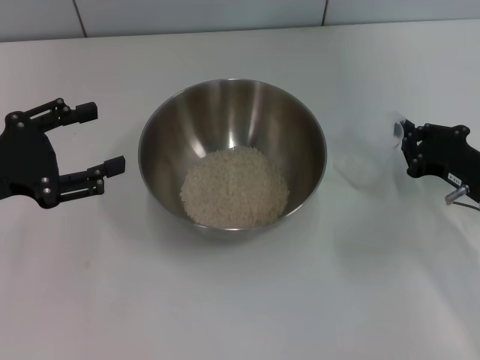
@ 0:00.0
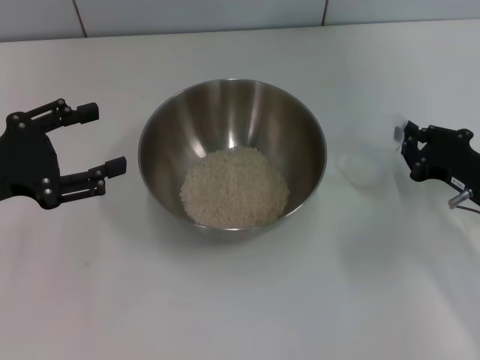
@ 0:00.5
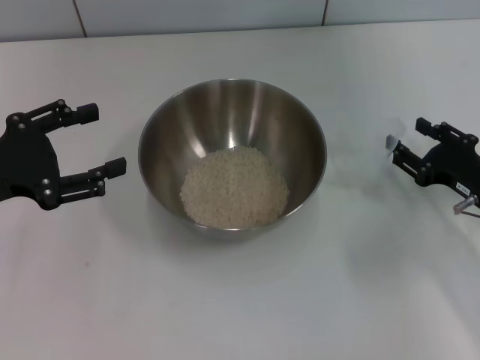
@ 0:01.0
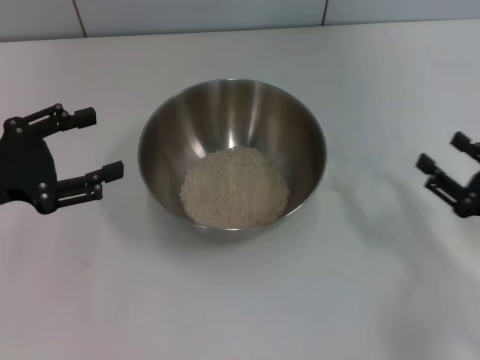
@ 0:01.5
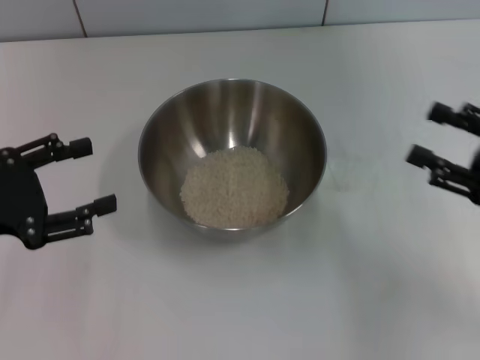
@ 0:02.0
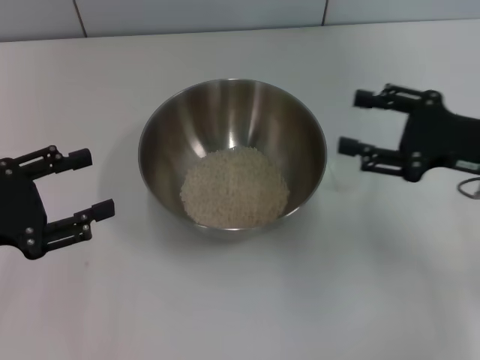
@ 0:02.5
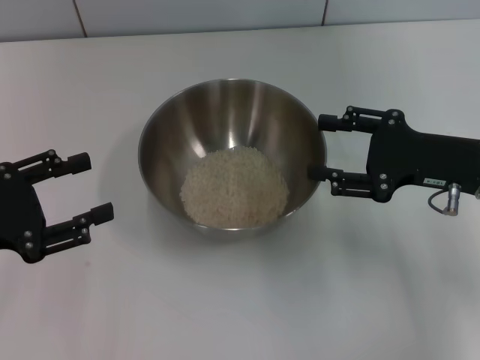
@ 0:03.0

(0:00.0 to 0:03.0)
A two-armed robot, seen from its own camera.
Task of the whole recording: Place the bowl in the middle of the table with one hand and pour the rice from the grain cup into it with the other hand.
0:00.0 - 0:01.5: The right gripper heads backward, covering some 10 cm, and opens up.
0:01.5 - 0:03.0: The right gripper goes roughly 15 cm forward, upward and to the left.

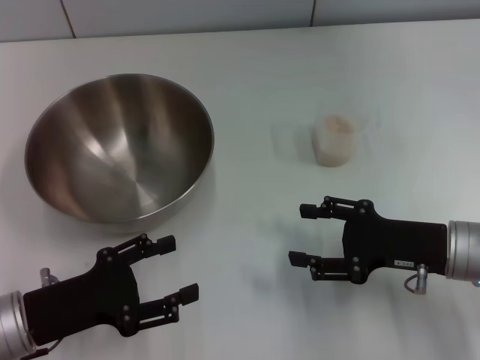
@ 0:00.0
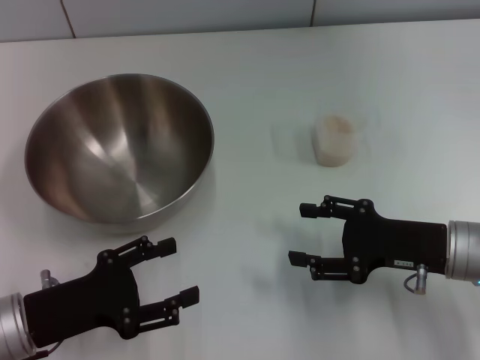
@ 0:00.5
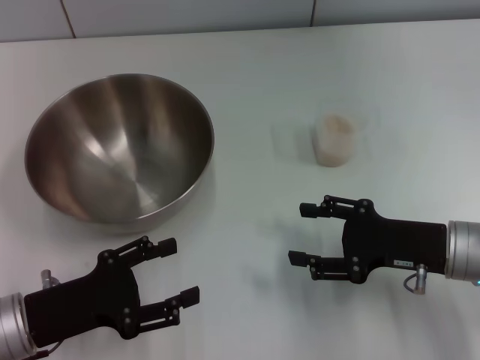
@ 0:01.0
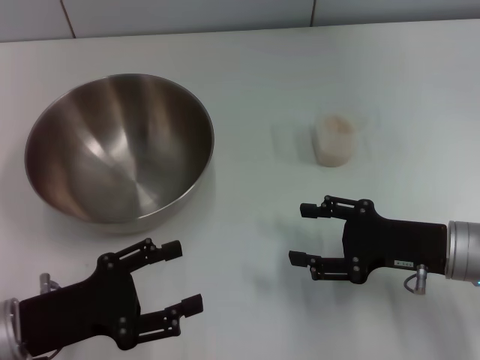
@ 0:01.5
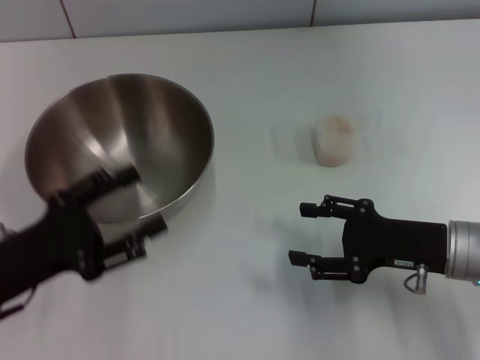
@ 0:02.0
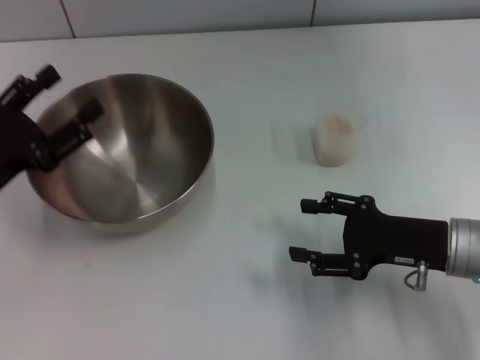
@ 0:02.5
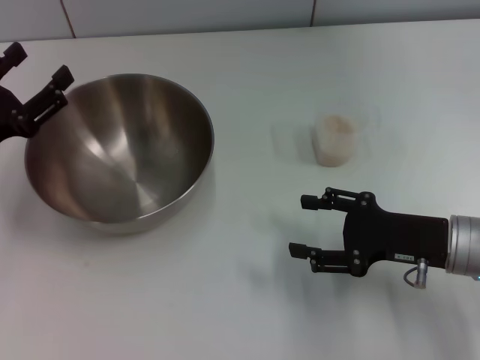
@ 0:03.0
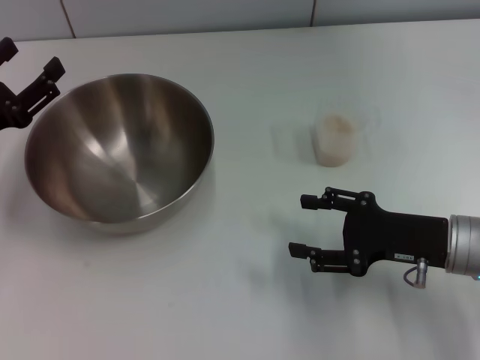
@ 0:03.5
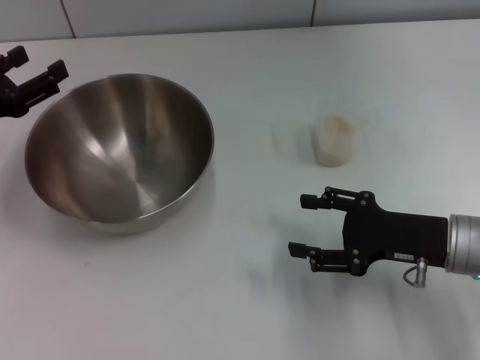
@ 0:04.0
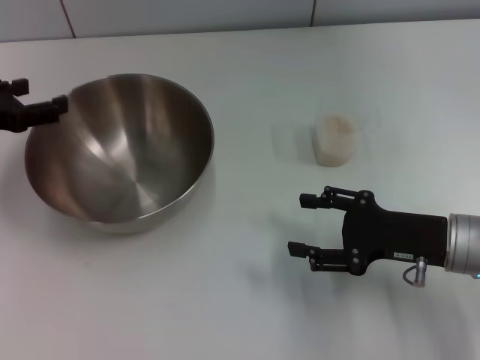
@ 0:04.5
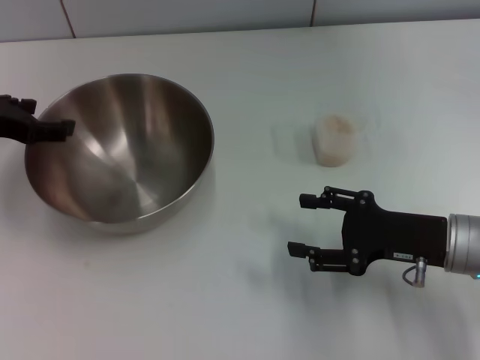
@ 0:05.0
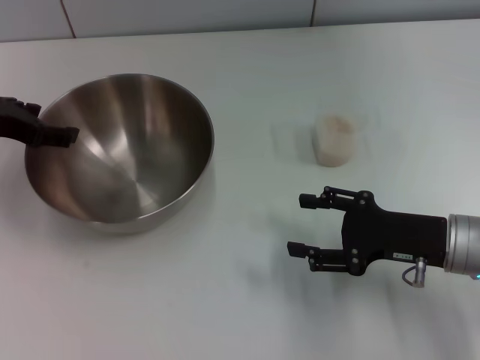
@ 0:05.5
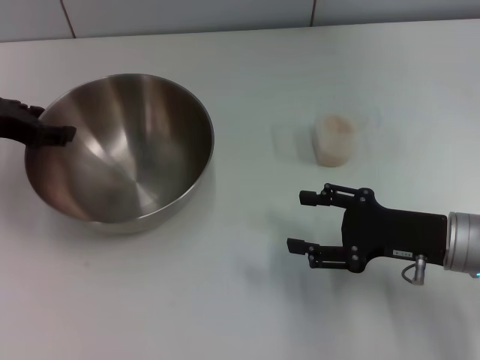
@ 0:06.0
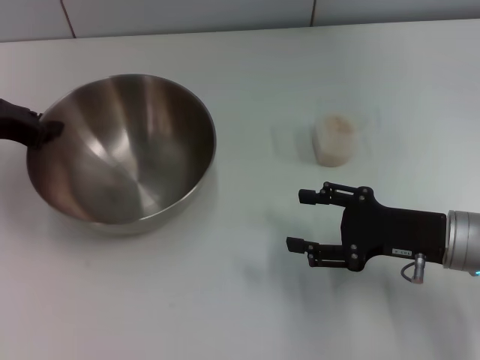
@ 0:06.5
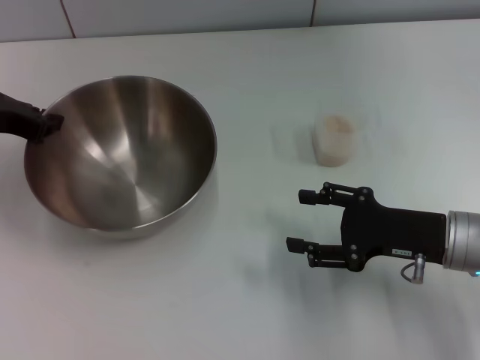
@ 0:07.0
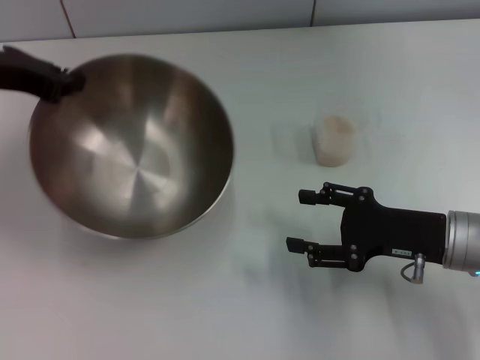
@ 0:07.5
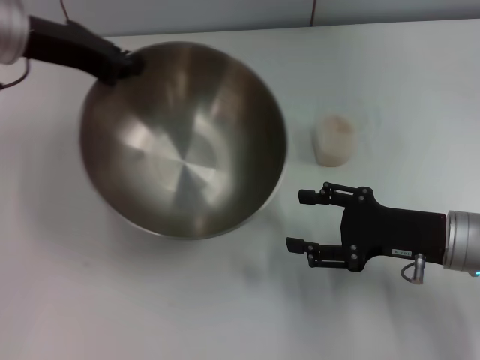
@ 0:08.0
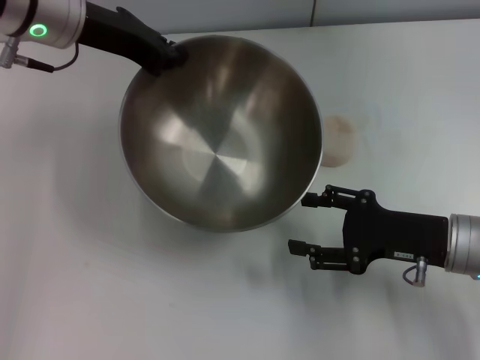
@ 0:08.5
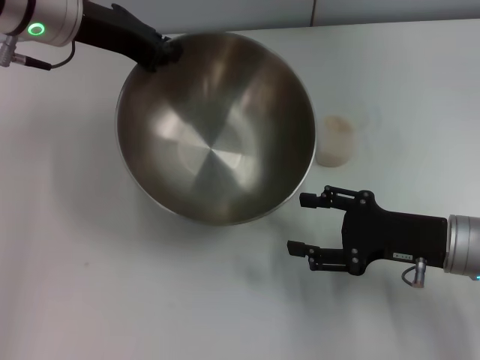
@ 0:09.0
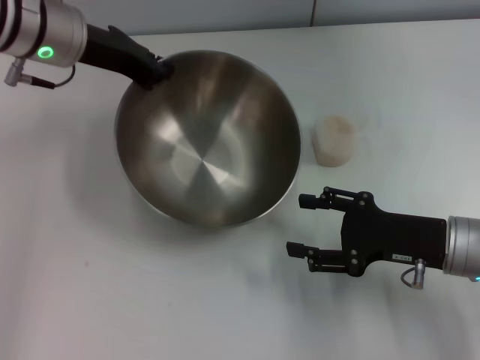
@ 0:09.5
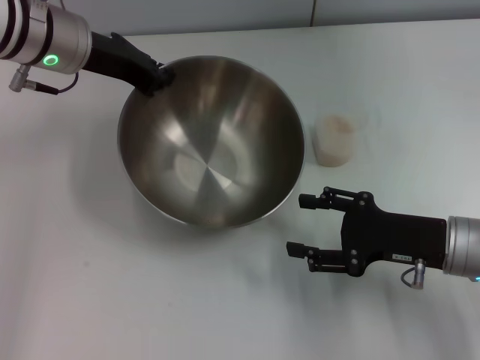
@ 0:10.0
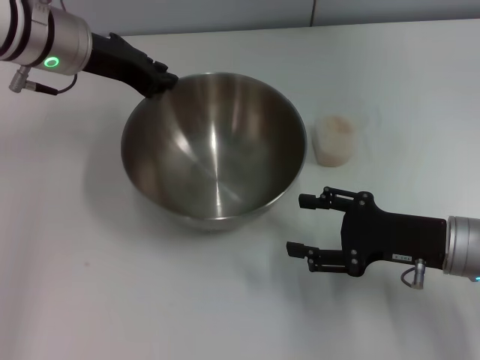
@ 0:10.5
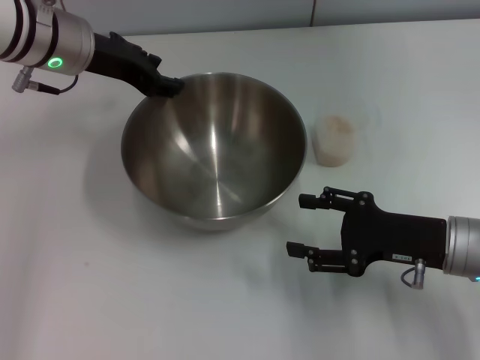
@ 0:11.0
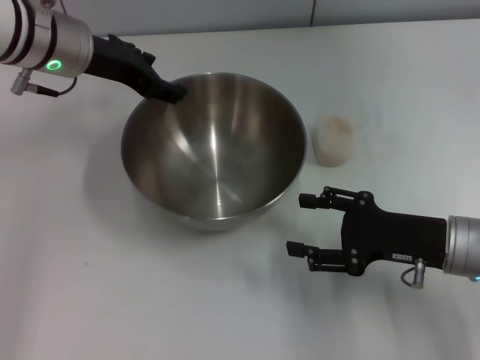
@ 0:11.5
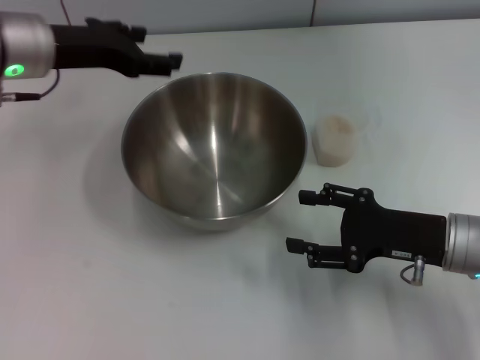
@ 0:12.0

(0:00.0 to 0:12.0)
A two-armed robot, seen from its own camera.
Task of the whole recording: Place the bowl in the middle of the table with one hand and pour the rice from the grain cup into it with the other hand.
Step, 0:00.0 - 0:07.5: Pick up the bowl with the left gripper.
0:00.0 - 0:02.0: The grippers move only a little.
0:02.0 - 0:04.0: The left gripper goes approximately 10 cm forward and to the left.
0:04.0 - 0:06.0: The left gripper changes place by some 5 cm.
0:06.0 - 0:08.0: The left gripper travels to the right and upward by about 10 cm, and closes.
0:08.0 - 0:10.0: The left gripper moves roughly 5 cm.
0:10.0 - 0:12.0: The left gripper opens its fingers.

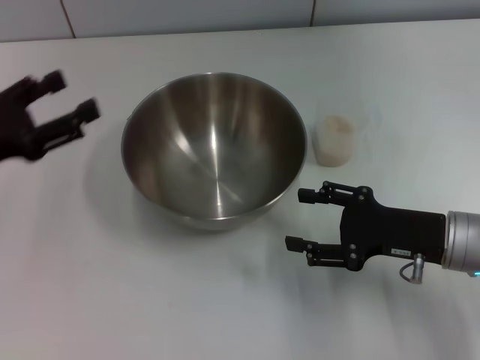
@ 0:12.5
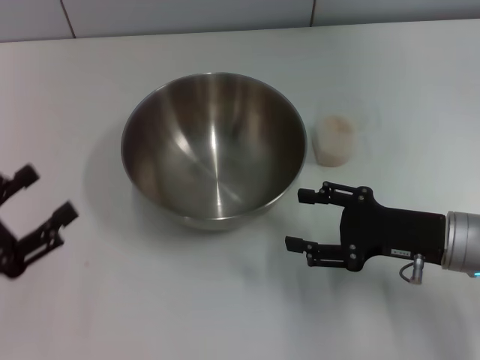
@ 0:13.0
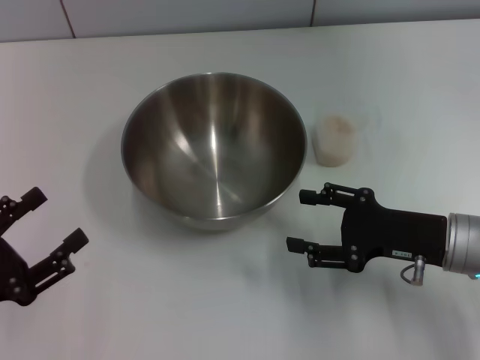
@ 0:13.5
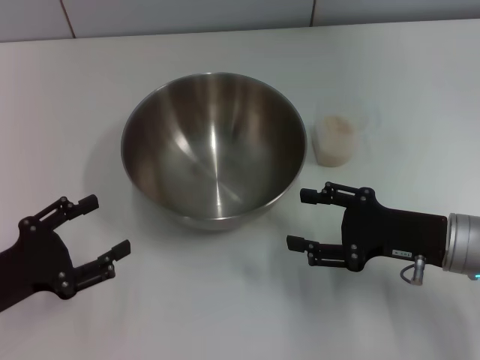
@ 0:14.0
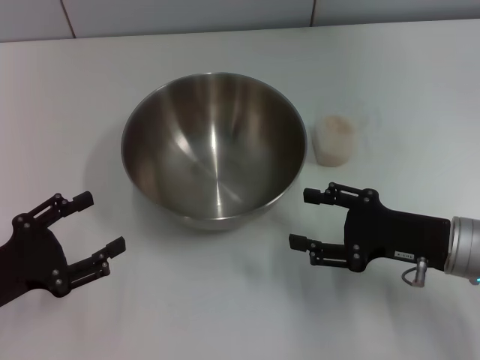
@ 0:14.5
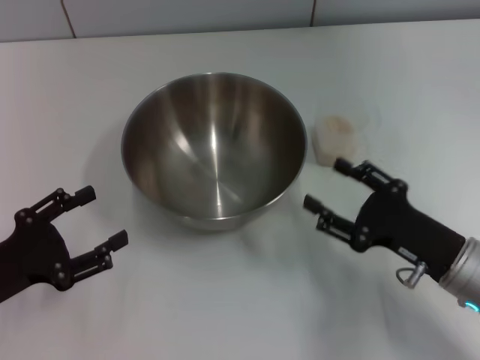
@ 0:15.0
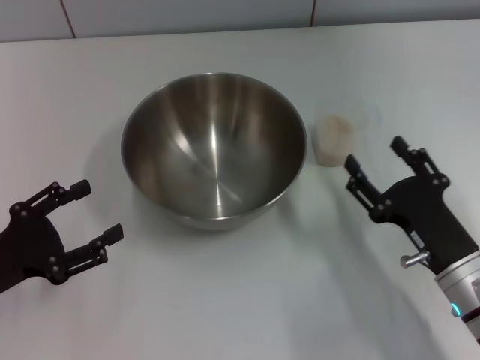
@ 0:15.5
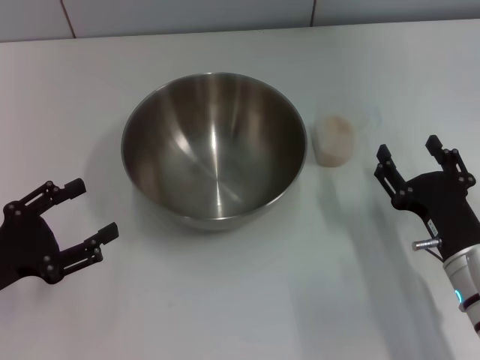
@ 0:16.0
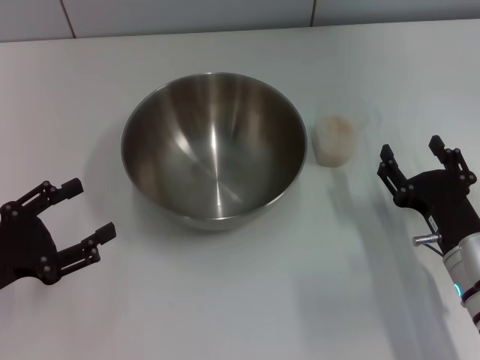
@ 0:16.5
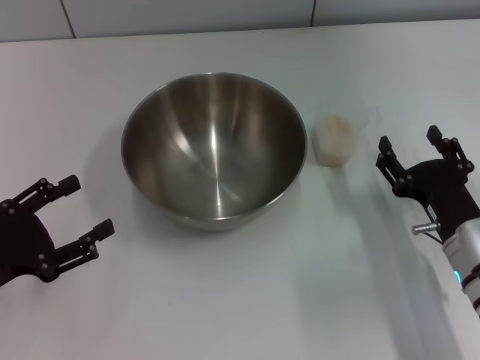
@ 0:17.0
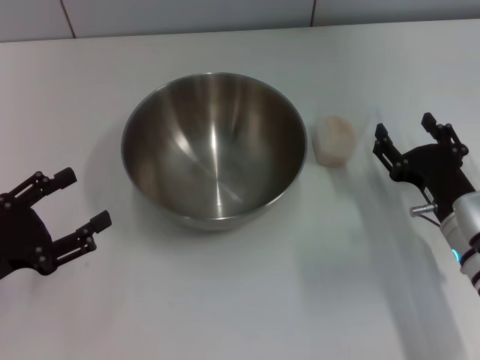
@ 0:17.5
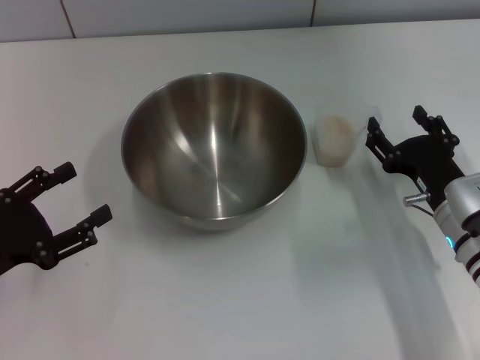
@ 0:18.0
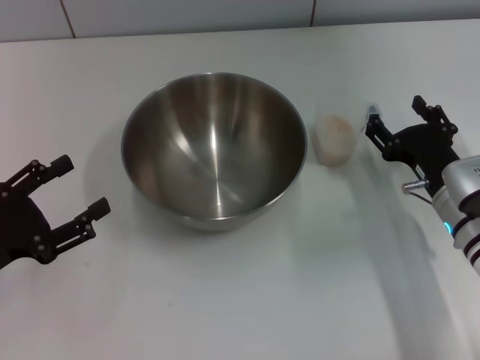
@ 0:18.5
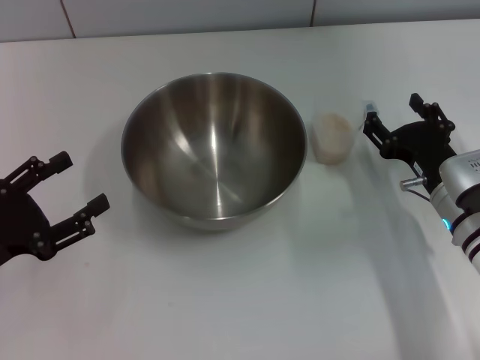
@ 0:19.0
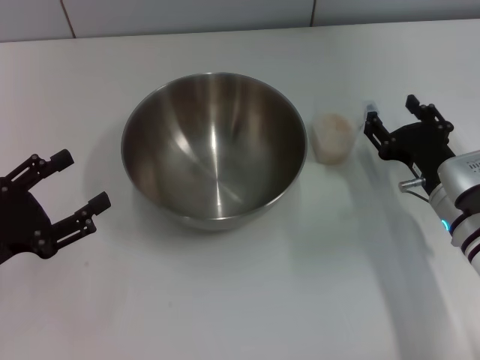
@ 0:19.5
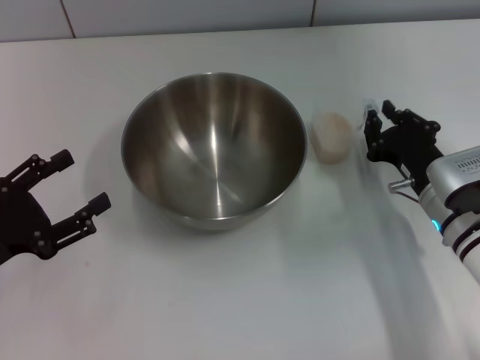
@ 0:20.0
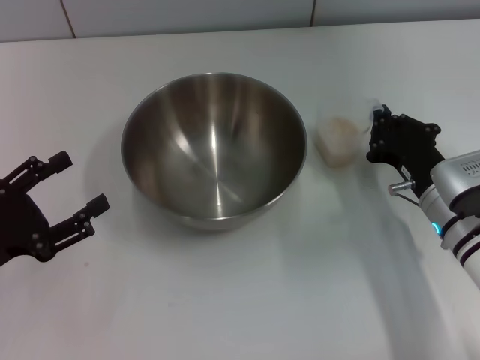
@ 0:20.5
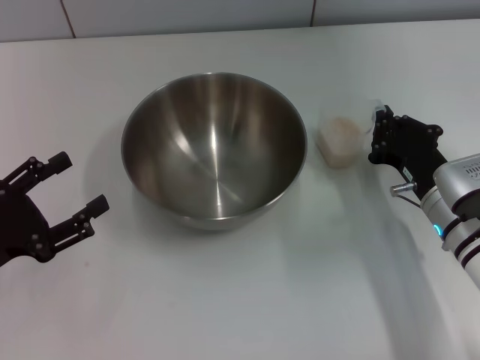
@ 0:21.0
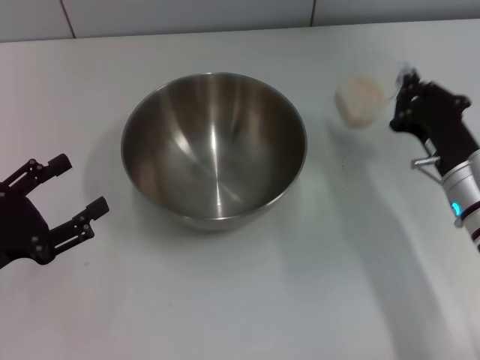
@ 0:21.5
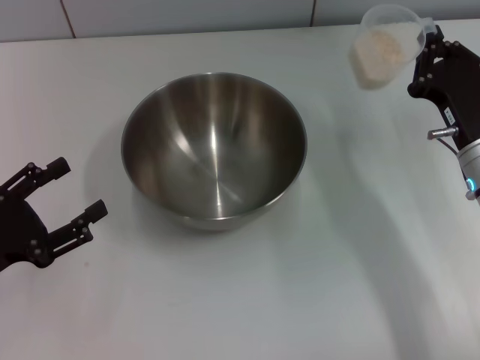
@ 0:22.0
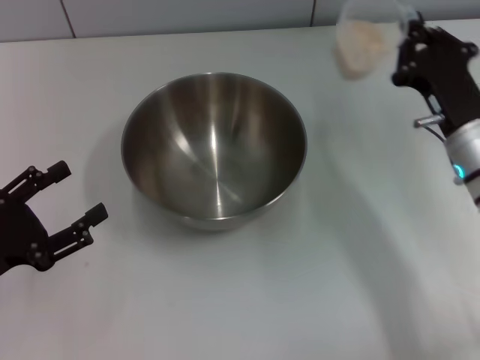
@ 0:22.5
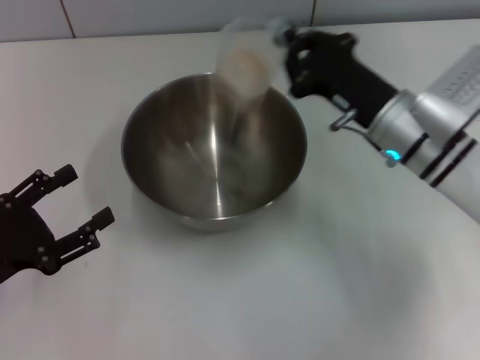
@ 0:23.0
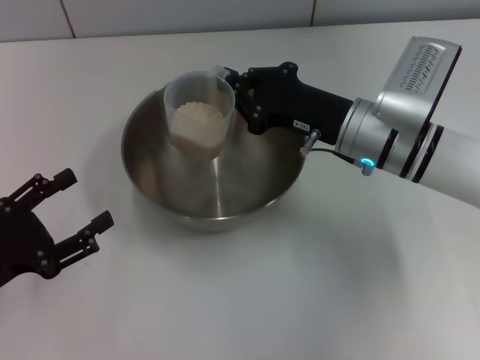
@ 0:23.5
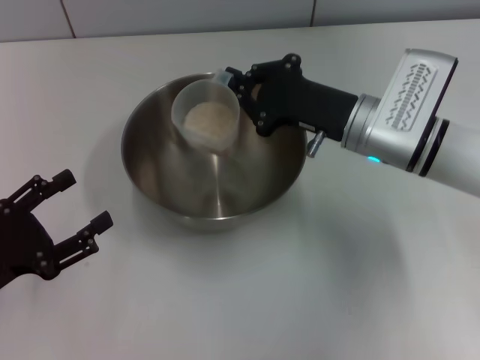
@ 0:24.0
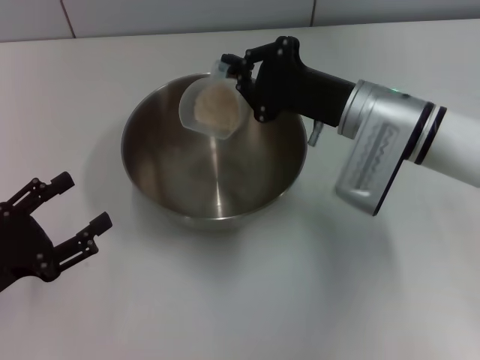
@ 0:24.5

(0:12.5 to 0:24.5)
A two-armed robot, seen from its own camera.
Task of the whole recording: Place the bowl in the middle of the table with one hand and pour the rice from the grain cup into it with the other hand.
Step, 0:13.0 - 0:22.0: Pick up the cup with rice in it with the right gripper.
0:12.5 - 0:14.5: The left gripper is displaced backward and downward by about 10 cm.
0:14.5 - 0:16.5: The right gripper ends up roughly 5 cm from where it was.
0:16.5 - 0:18.5: The right gripper travels forward by roughly 5 cm.
0:18.5 - 0:20.5: The right gripper closes up.
0:20.5 - 0:22.5: The right gripper moves upward, about 5 cm.
0:22.5 - 0:24.5: The right gripper goes some 10 cm to the left and forward.
